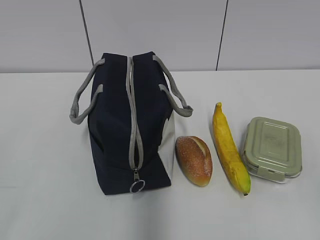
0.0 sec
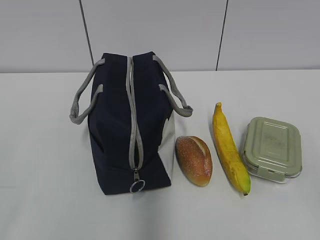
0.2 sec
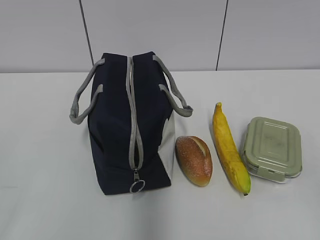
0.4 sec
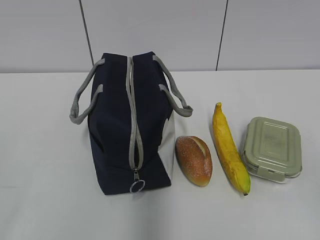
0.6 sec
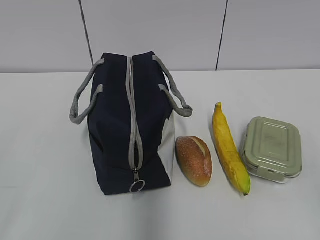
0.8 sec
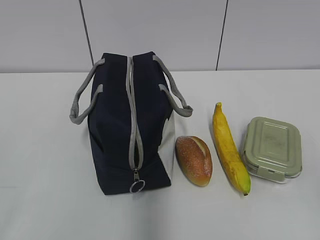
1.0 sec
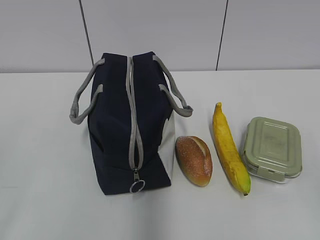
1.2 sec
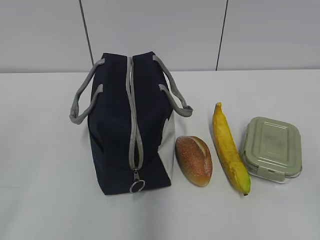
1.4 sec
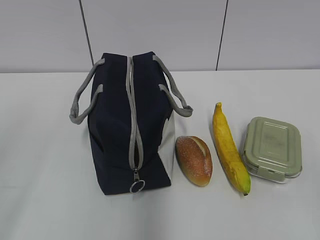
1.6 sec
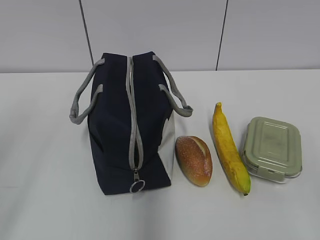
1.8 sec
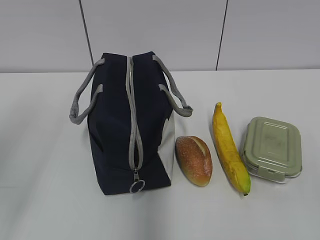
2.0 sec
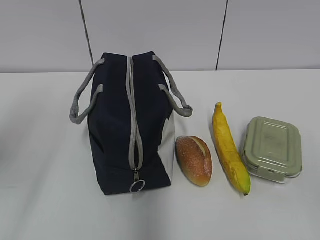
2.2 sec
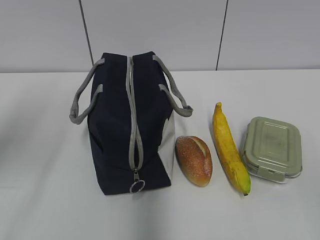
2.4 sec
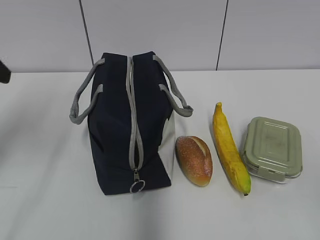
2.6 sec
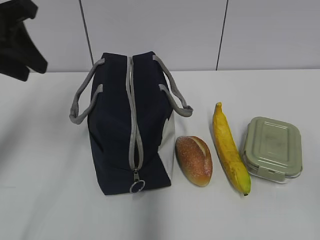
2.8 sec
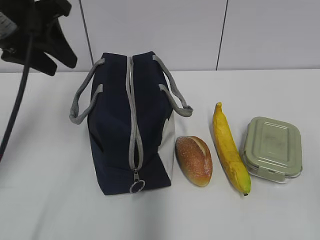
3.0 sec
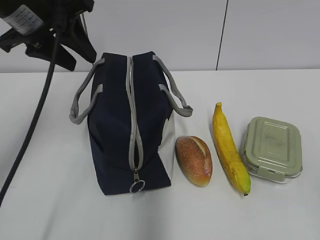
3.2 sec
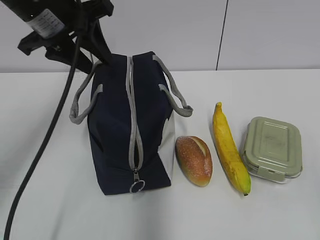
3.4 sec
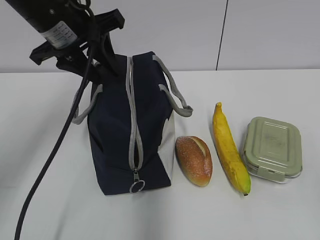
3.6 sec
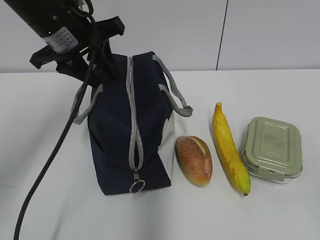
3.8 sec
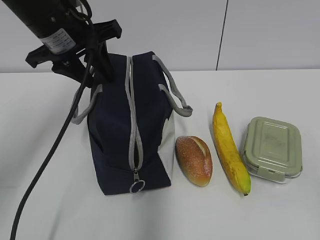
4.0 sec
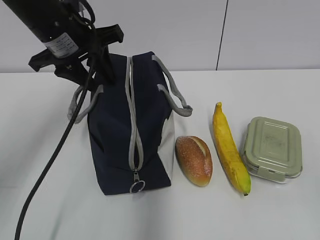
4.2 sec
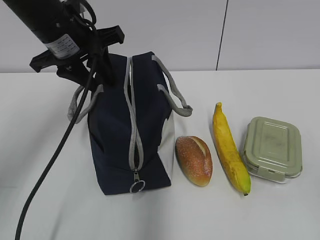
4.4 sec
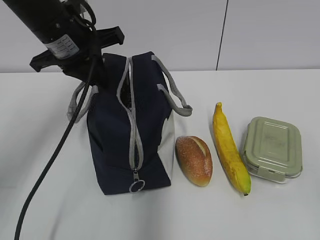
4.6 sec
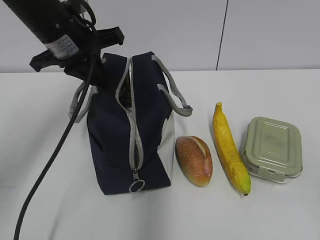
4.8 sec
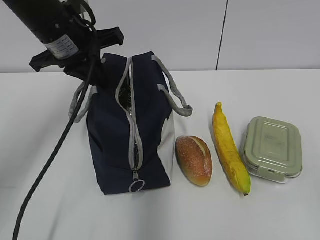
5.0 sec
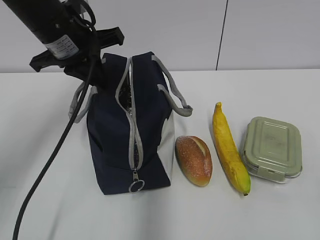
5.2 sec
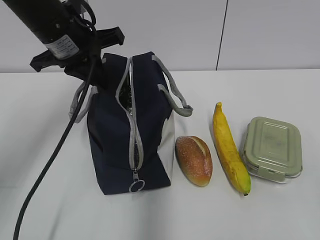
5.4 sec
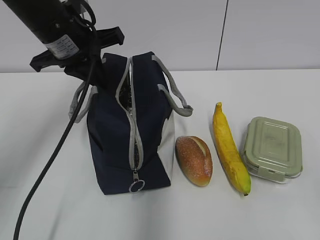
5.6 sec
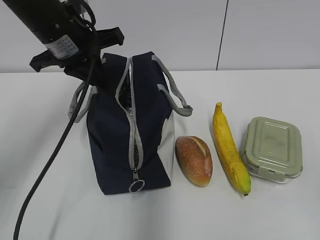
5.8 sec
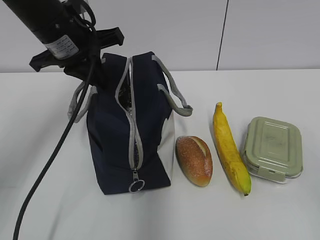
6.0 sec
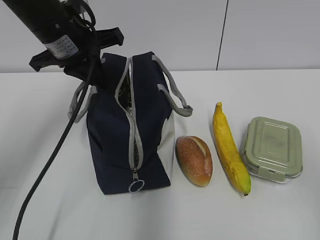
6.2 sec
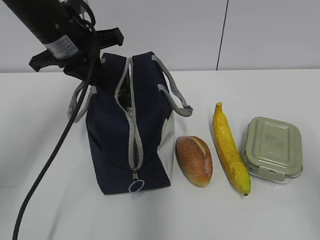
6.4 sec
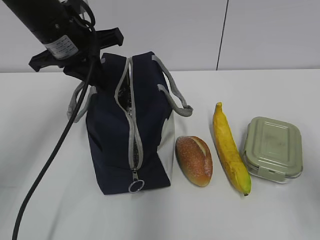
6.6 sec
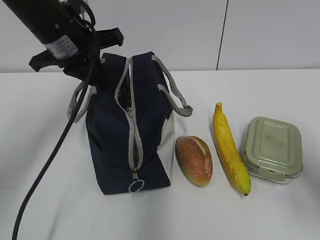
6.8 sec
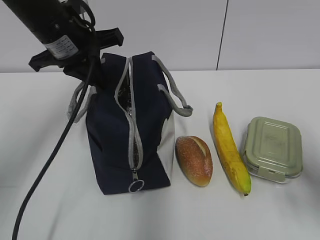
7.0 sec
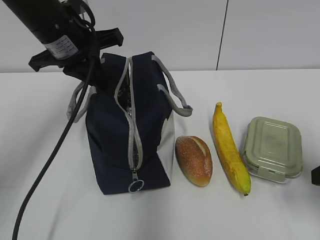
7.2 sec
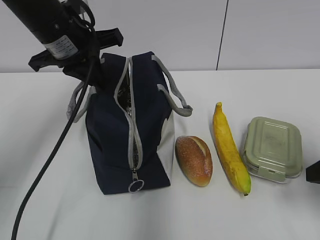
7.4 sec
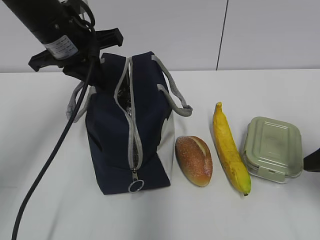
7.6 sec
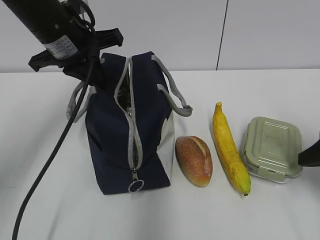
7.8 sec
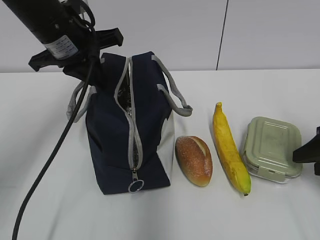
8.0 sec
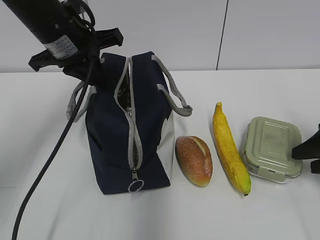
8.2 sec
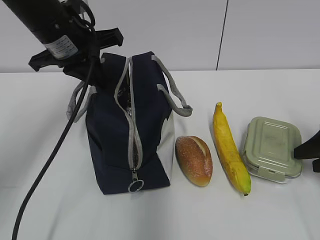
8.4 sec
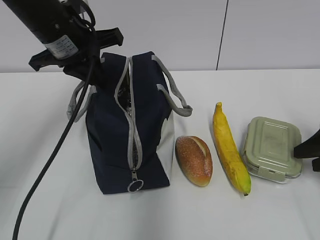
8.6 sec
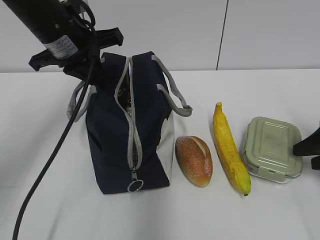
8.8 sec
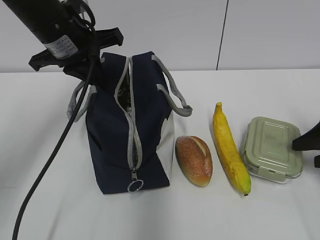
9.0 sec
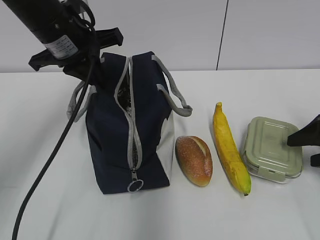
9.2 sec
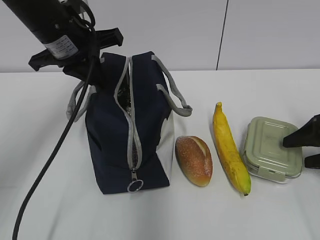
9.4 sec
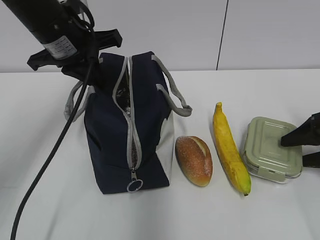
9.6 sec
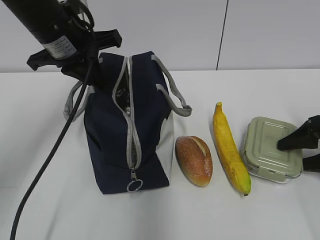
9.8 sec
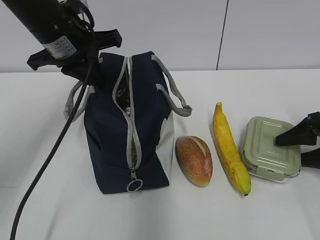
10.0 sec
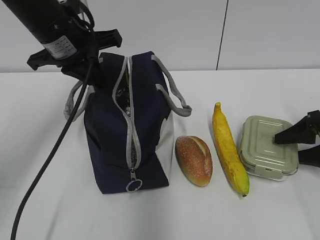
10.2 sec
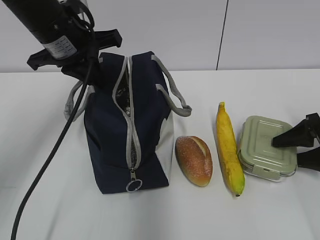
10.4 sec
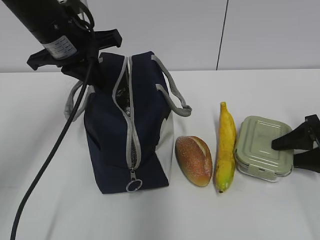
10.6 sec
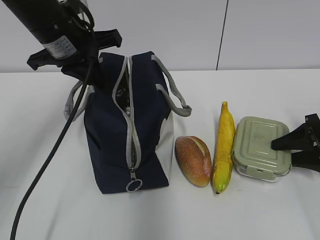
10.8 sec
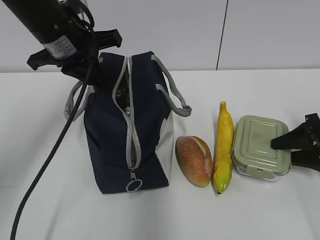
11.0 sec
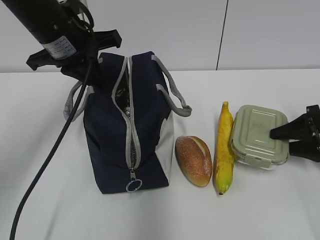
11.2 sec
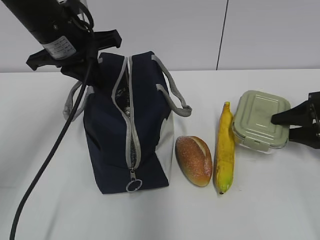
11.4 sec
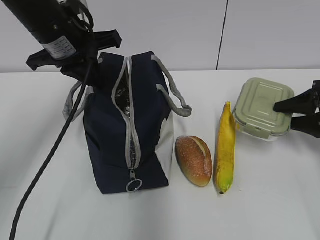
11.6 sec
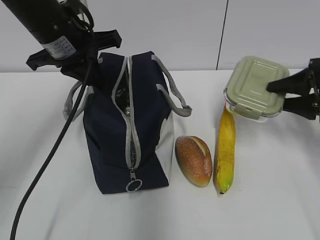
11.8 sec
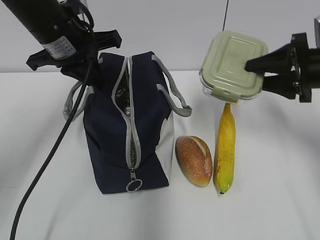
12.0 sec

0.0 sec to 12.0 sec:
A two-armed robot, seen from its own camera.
1.6 sec to 3.0 sec: The left gripper moves forward, about 25 cm.
3.0 sec to 4.4 sec: The left gripper travels to the right by roughly 5 cm.
4.4 sec to 6.0 sec: The left gripper closes.
6.0 sec to 7.6 sec: The right gripper travels forward by some 20 cm.
7.6 sec to 9.0 sec: The right gripper goes about 10 cm forward and to the right.
9.0 sec to 10.4 sec: The right gripper ends up some 5 cm from where it was.
10.4 sec to 12.0 sec: The right gripper goes some 15 cm upward and to the left.

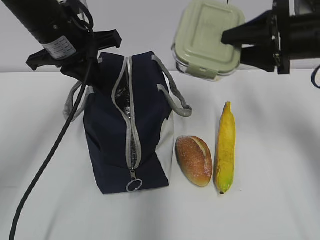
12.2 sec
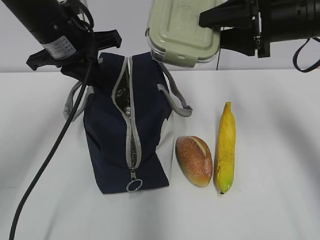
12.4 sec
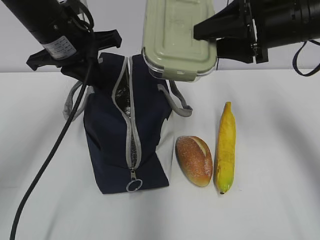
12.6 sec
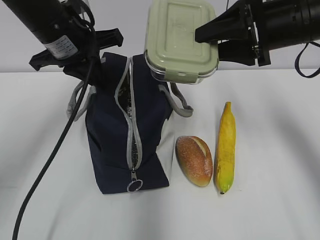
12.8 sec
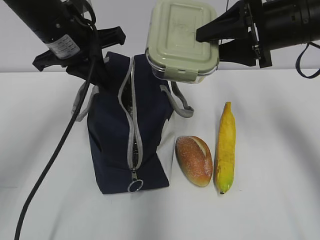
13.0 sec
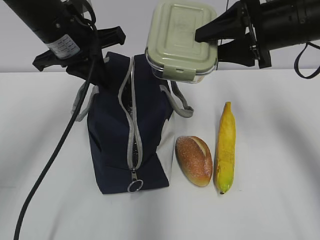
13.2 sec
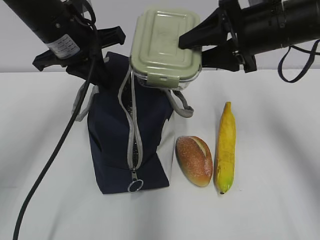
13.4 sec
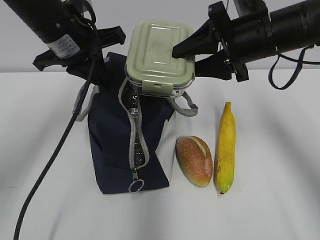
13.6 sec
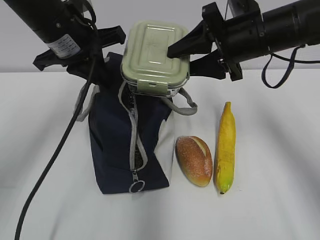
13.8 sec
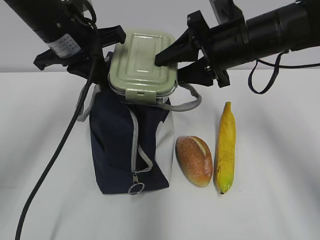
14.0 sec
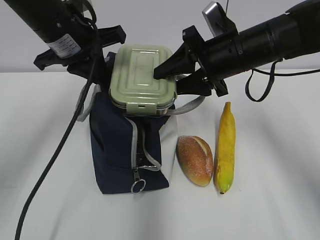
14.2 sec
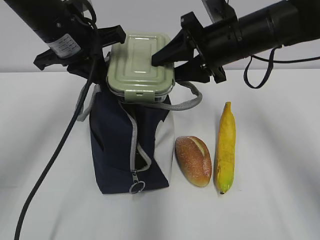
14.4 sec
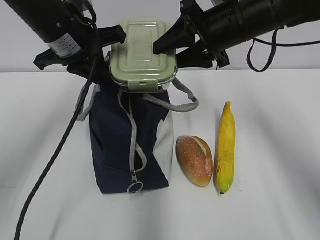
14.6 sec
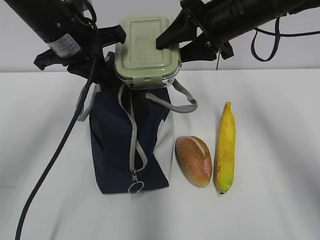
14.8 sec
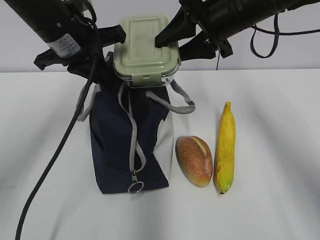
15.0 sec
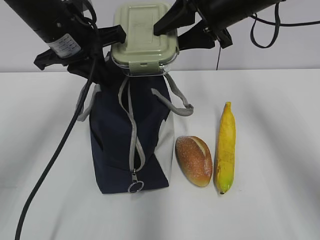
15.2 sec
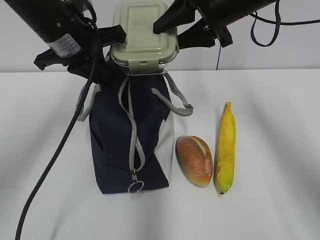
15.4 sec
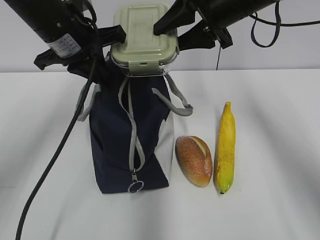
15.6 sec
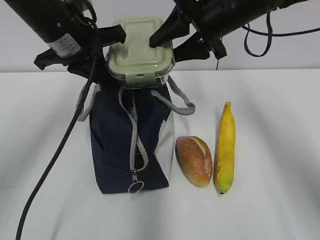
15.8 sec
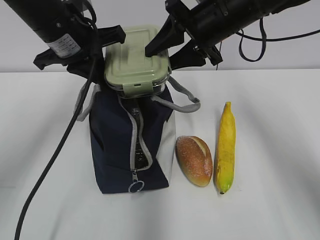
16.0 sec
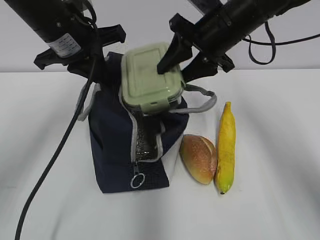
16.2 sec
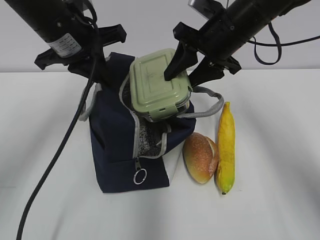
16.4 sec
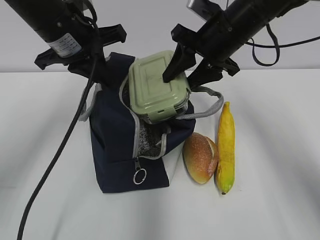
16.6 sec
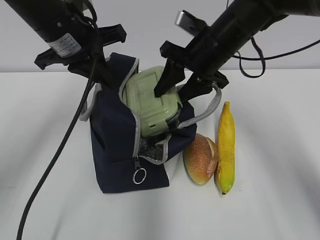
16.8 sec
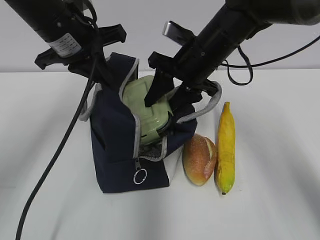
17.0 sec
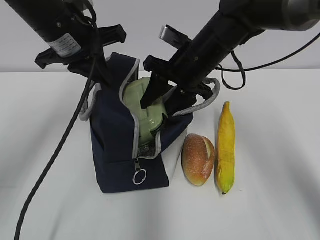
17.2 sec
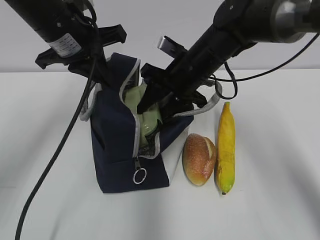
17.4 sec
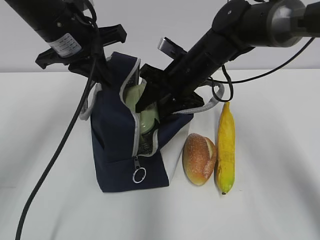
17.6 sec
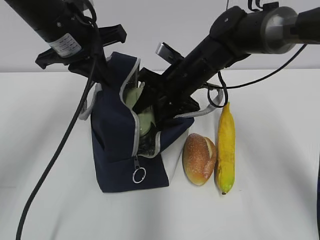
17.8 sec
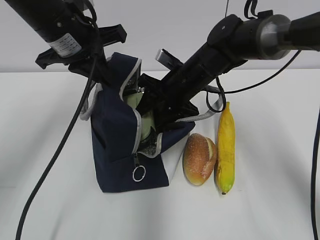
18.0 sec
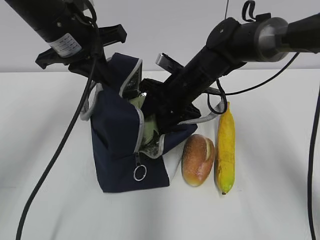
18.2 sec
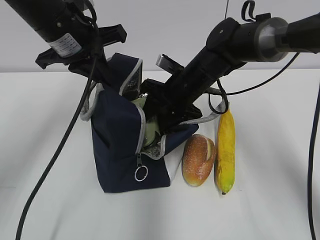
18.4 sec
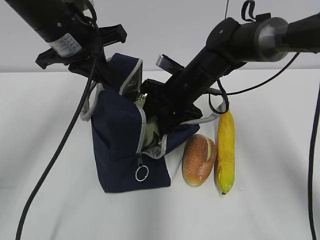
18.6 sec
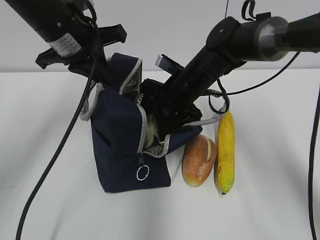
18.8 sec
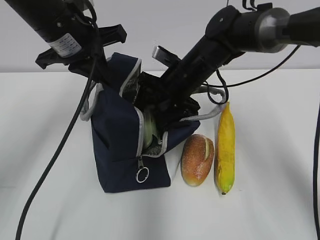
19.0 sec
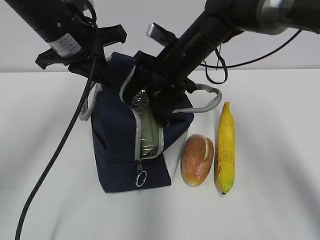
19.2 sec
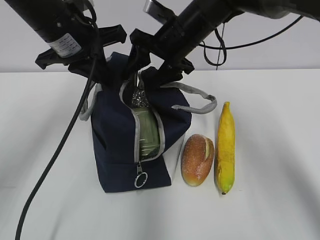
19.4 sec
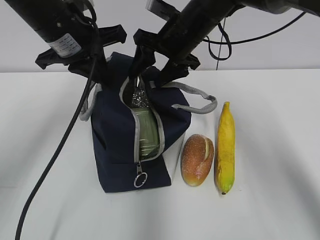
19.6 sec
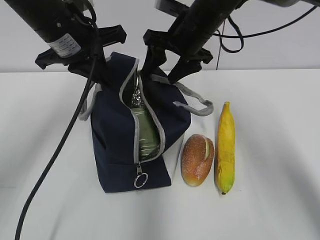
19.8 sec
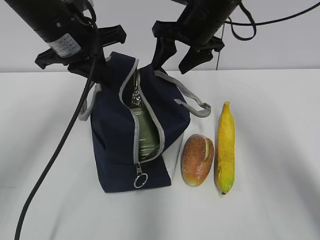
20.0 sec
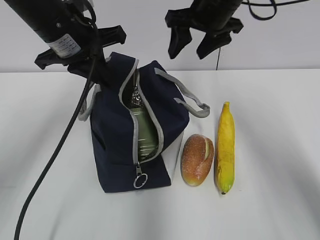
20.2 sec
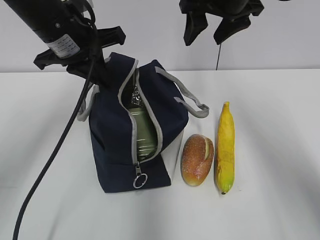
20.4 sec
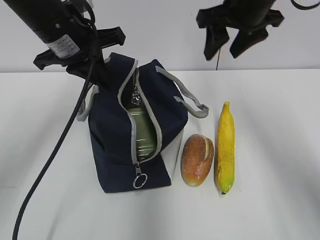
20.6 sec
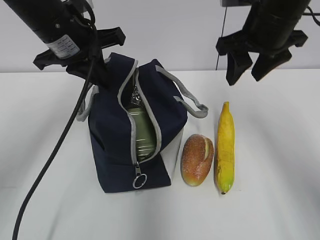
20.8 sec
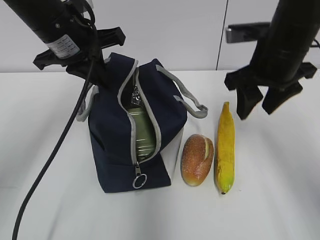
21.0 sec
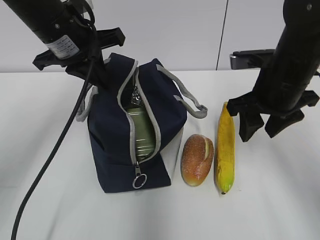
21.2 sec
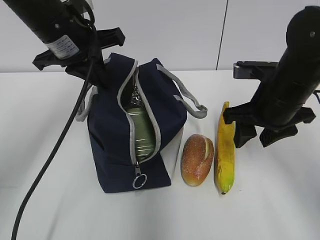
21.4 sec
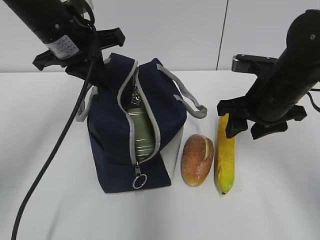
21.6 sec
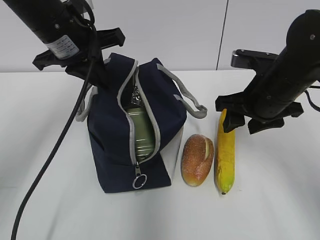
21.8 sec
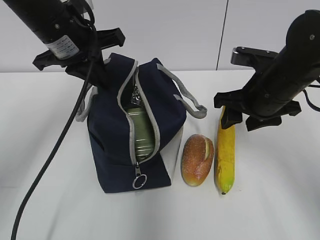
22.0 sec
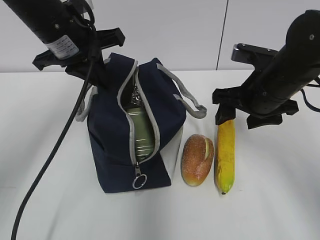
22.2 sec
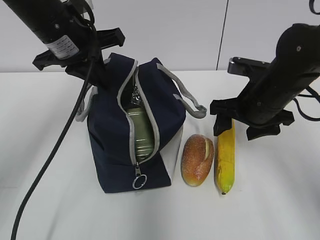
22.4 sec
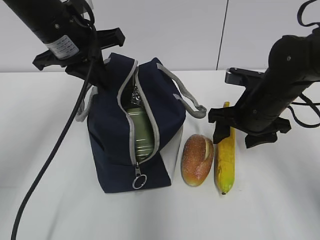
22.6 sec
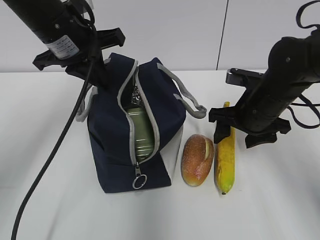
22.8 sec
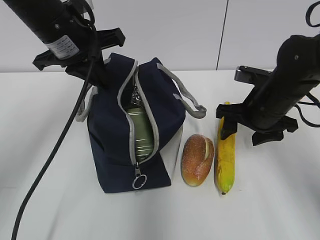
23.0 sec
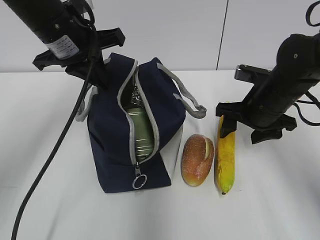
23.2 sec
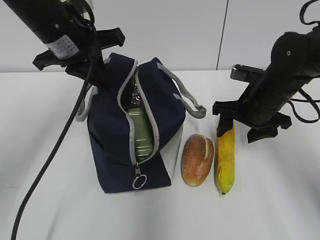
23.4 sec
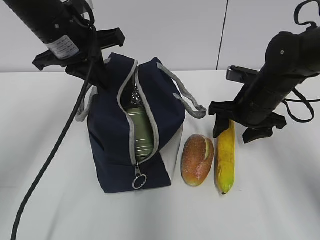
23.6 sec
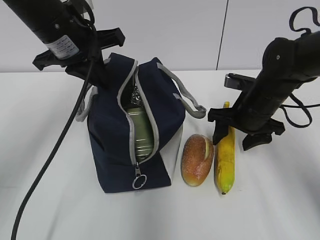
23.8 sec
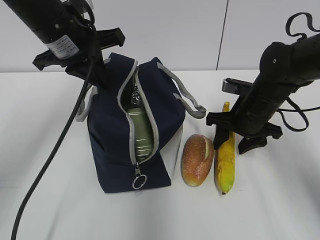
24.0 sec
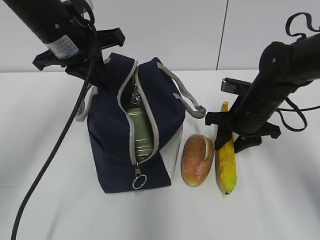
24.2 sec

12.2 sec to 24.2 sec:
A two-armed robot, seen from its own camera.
12.2 sec to 13.8 sec: The right gripper goes roughly 10 cm to the left.
13.8 sec to 15.2 sec: The right gripper changes place by some 5 cm.
16.6 sec to 18.2 sec: The right gripper heads downward and to the left, covering some 10 cm.
18.2 sec to 19.8 sec: The right gripper goes approximately 10 cm upward.
19.8 sec to 21.2 sec: The right gripper is displaced backward and to the right by some 15 cm.
21.2 sec to 22.6 sec: The right gripper travels downward by approximately 5 cm.
22.6 sec to 24.2 sec: The right gripper closes its fingers.
